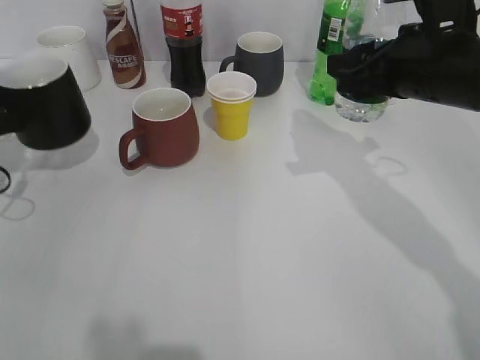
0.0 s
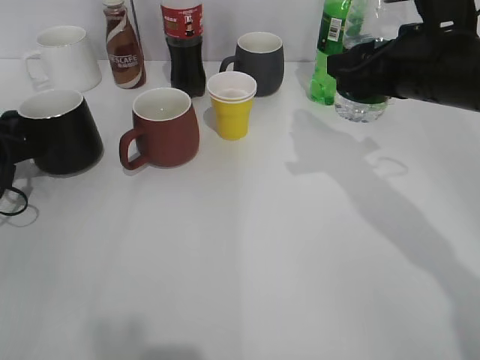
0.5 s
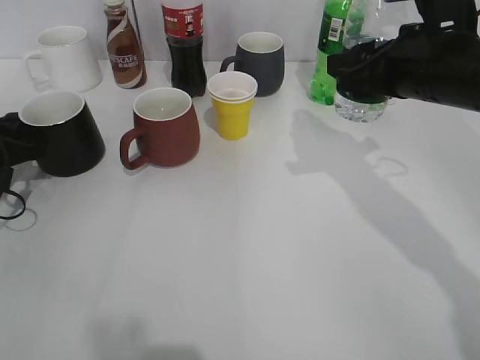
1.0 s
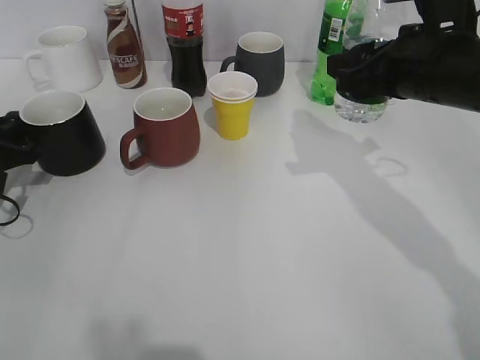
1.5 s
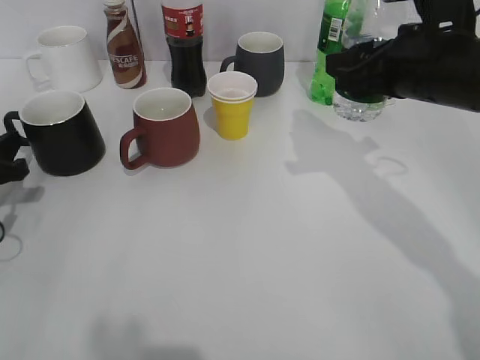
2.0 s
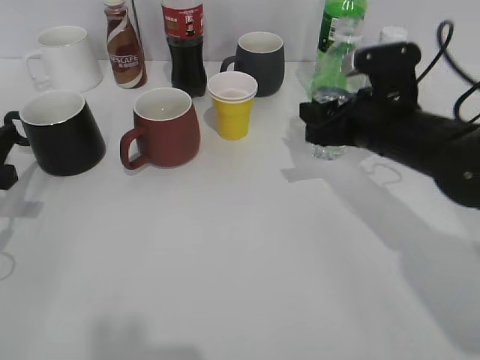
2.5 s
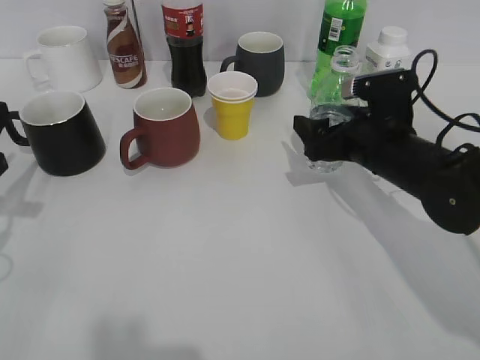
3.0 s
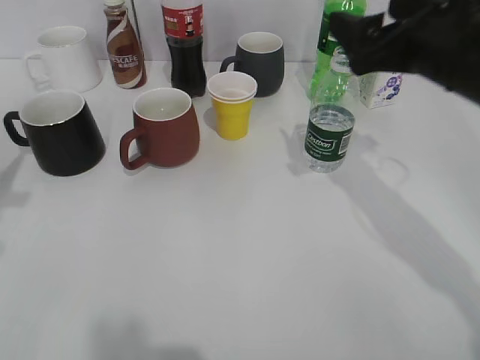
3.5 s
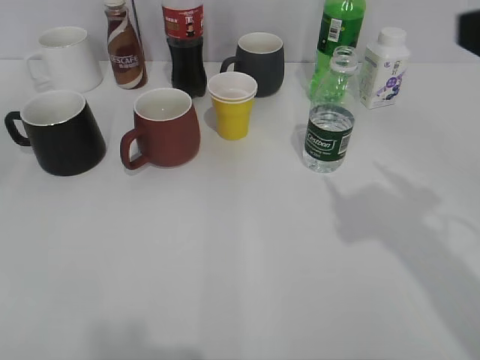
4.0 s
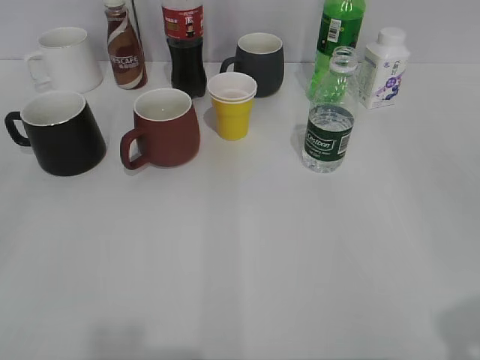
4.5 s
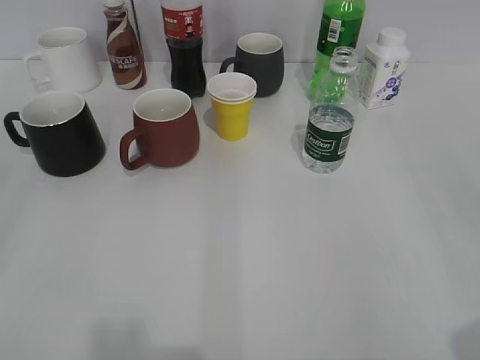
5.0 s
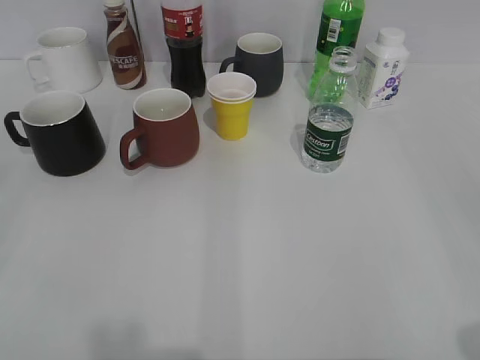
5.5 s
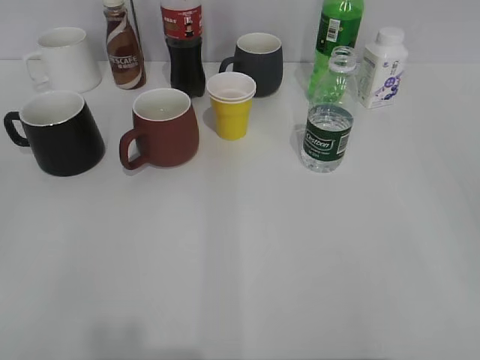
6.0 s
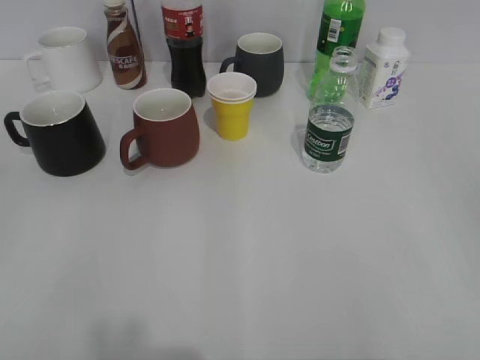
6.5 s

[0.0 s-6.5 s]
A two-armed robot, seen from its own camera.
Step, 1.0 to 3.0 s: Place the water bottle on the table with right gripper.
0.0 to 2.0 s: The left gripper changes place by approximately 5 cm, and opens.
2.0 to 4.5 s: The right gripper travels backward and to the right by about 30 cm, and opens up. Meanwhile the left gripper travels backward and upward by roughly 30 cm, and opens its fingers.

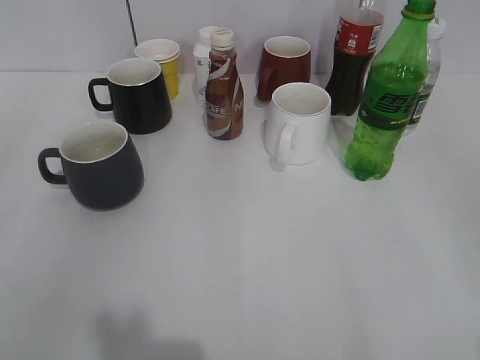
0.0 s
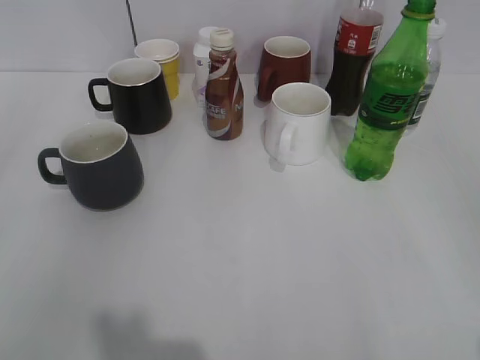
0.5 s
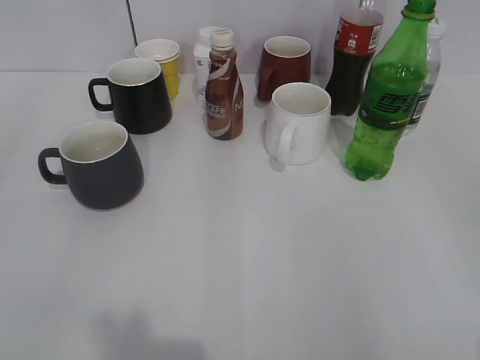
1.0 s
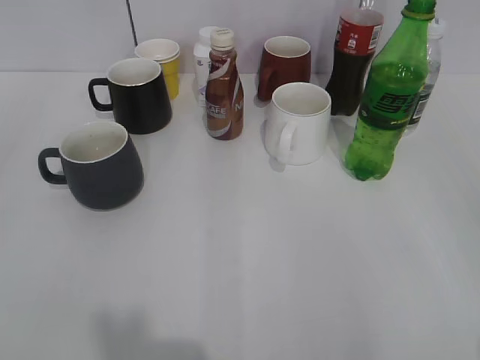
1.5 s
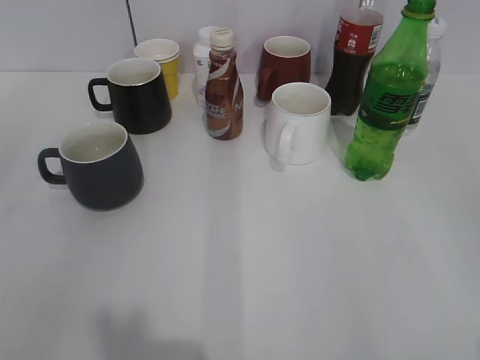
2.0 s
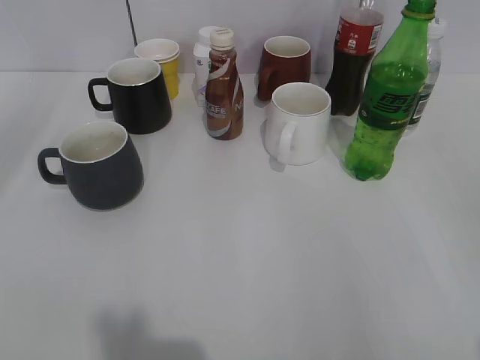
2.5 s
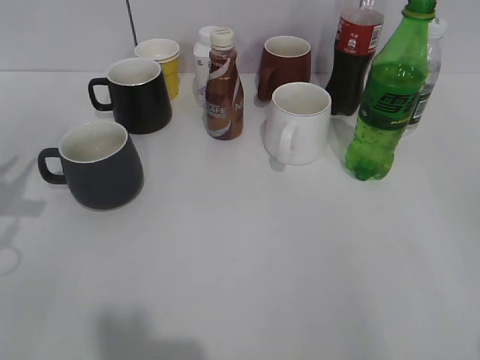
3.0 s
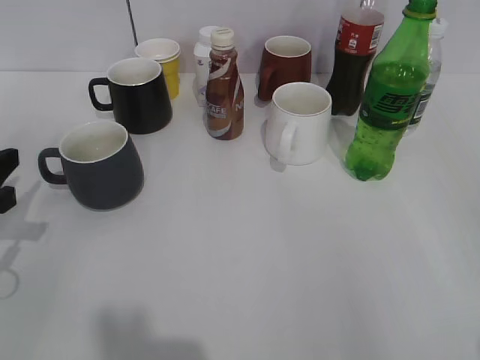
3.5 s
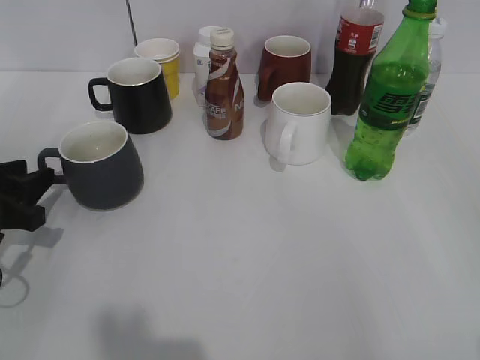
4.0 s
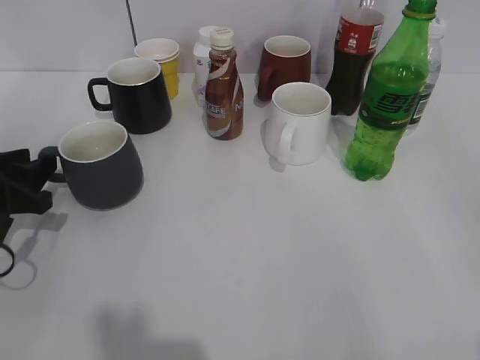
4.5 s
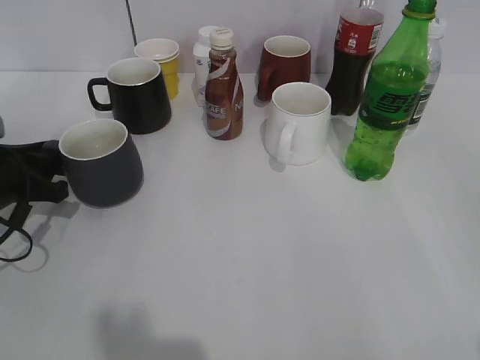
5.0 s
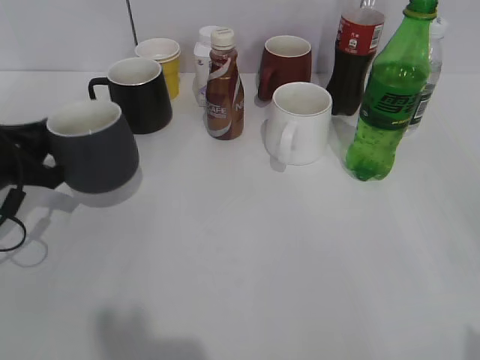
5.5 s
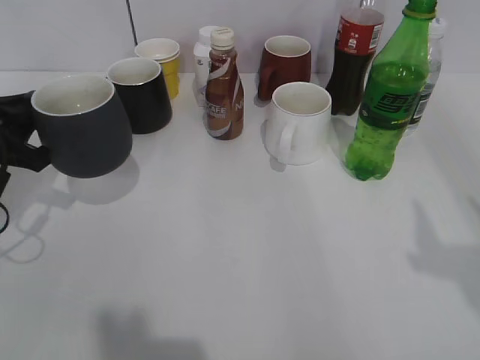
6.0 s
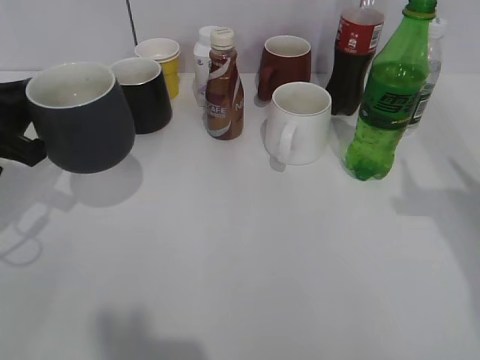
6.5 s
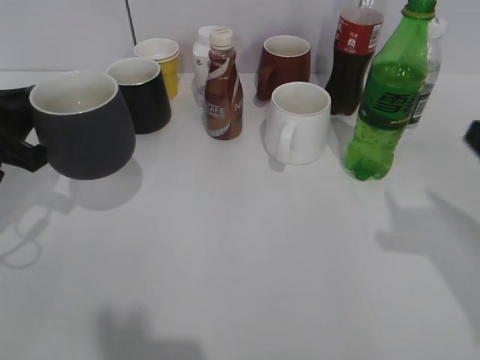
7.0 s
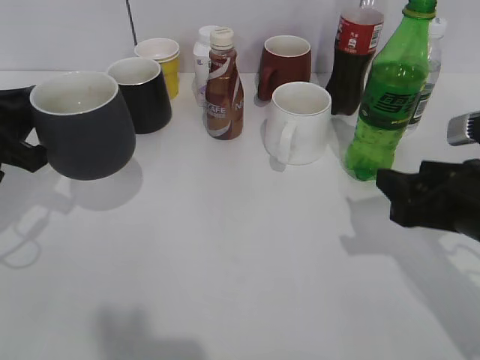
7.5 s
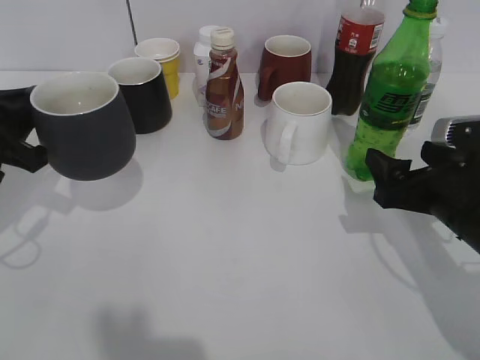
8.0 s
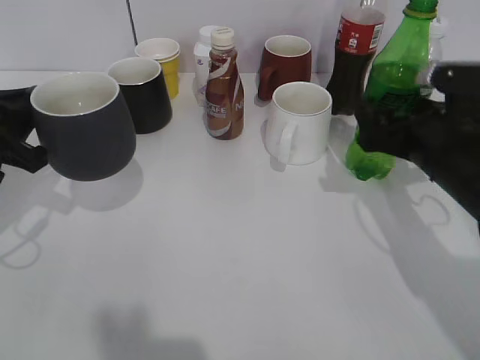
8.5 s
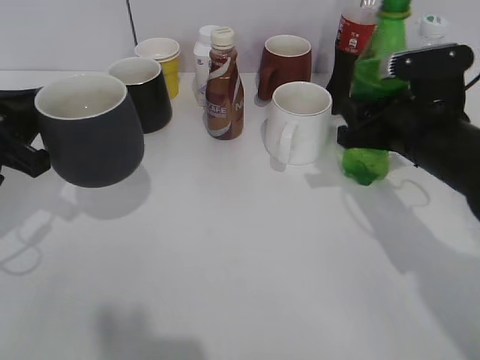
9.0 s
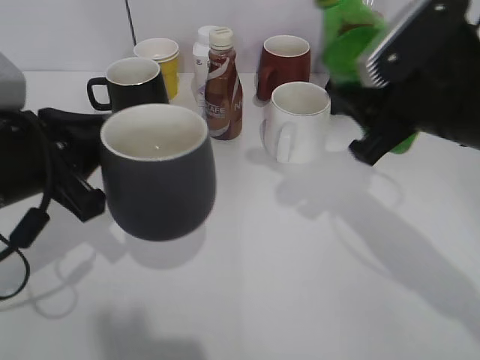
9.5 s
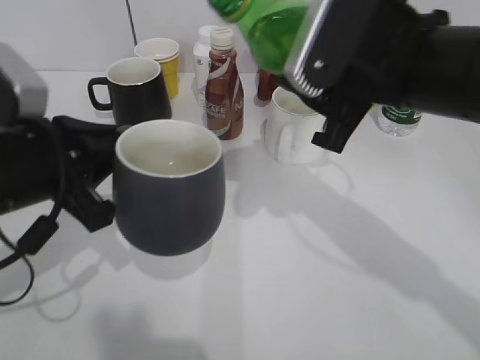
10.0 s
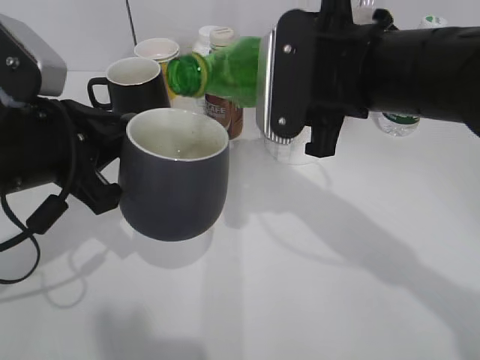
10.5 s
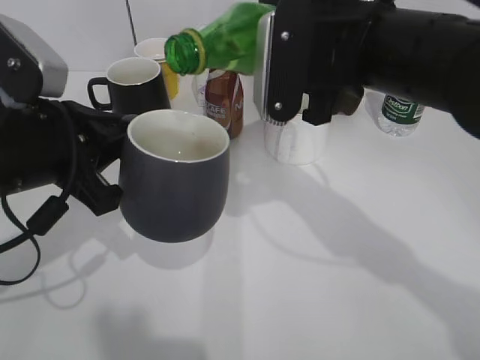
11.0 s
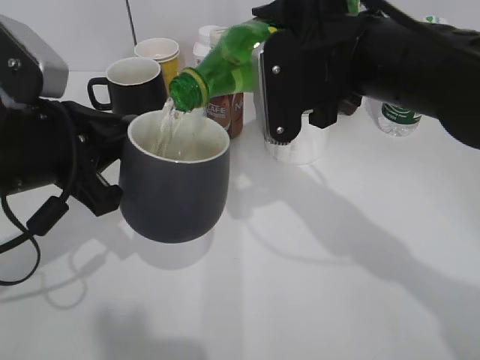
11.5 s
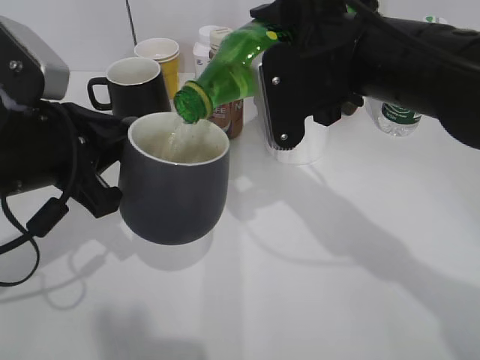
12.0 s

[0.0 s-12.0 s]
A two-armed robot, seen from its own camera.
Step, 2.0 to 5.0 s: Grasp the grey cup with left gripper.
Step, 5.5 to 6.5 s: Lift the grey cup with left gripper.
Step, 7.0 to 8.5 s: Grasp the bottle with sprite with right gripper.
2.0 to 4.0 s: The left gripper shifts about 30 cm forward and downward, and opens up.
4.0 to 6.0 s: The left gripper is displaced upward by approximately 5 cm, and closes its fingers.
6.0 to 8.0 s: The right gripper goes approximately 25 cm downward and forward, and closes and opens again.
8.0 to 10.0 s: The right gripper moves upward and to the left, approximately 15 cm, and closes. Meanwhile the left gripper goes approximately 10 cm to the right and backward.

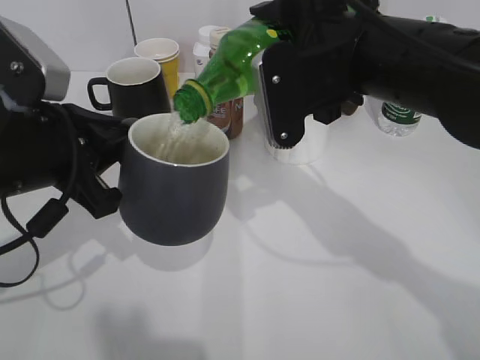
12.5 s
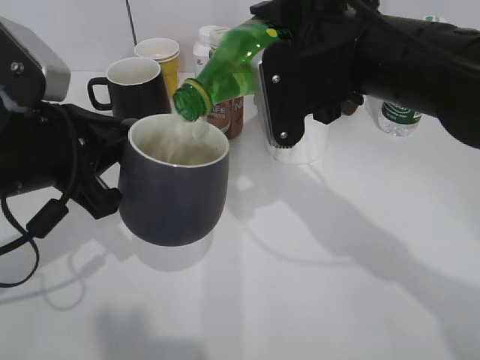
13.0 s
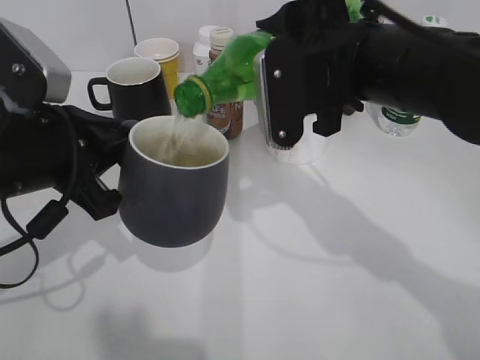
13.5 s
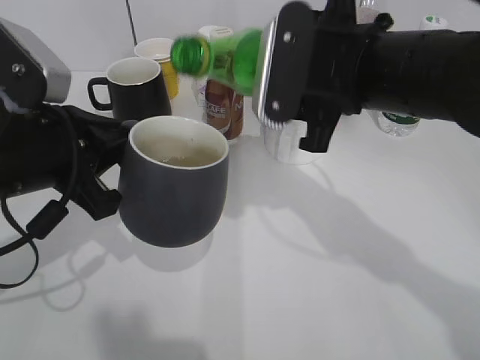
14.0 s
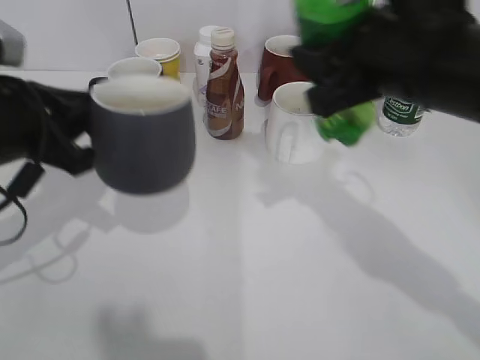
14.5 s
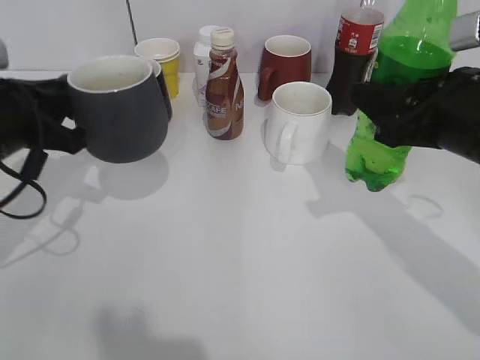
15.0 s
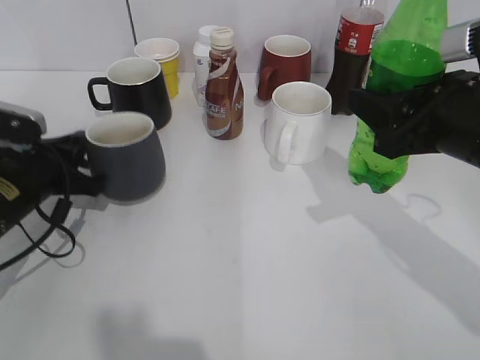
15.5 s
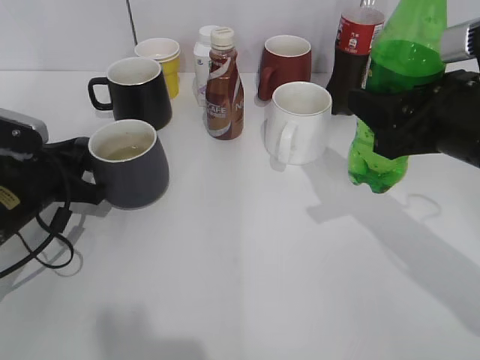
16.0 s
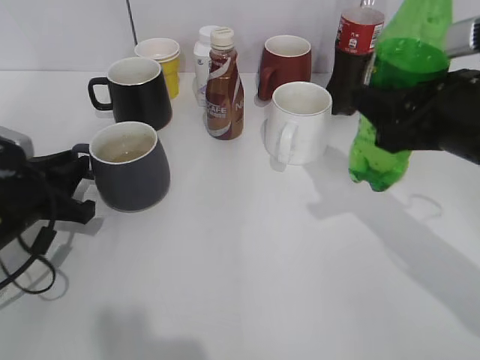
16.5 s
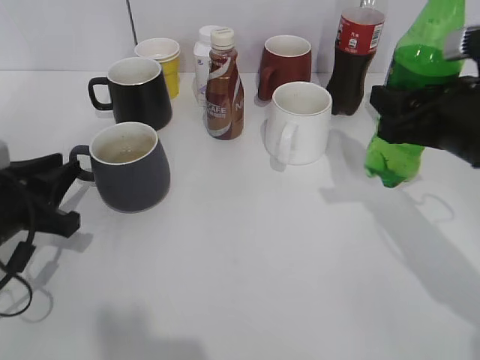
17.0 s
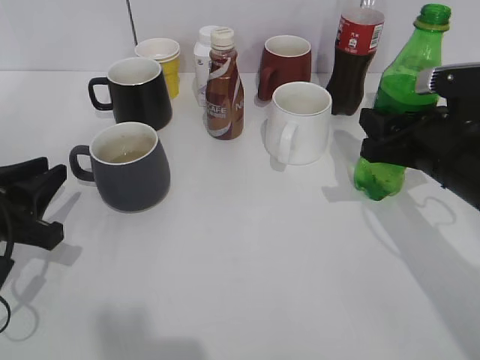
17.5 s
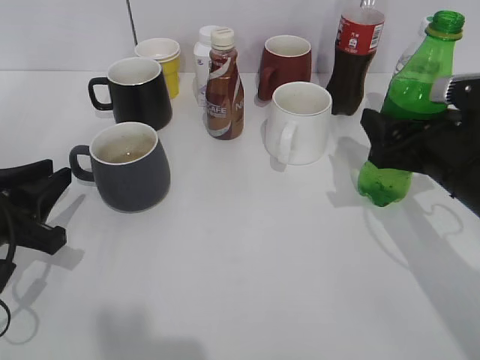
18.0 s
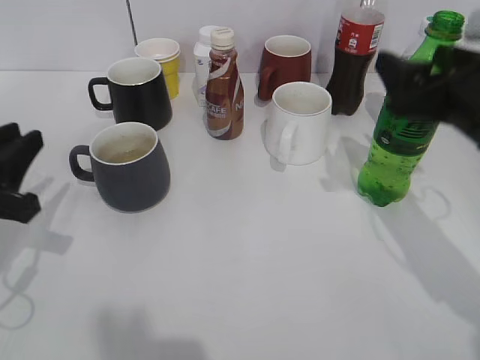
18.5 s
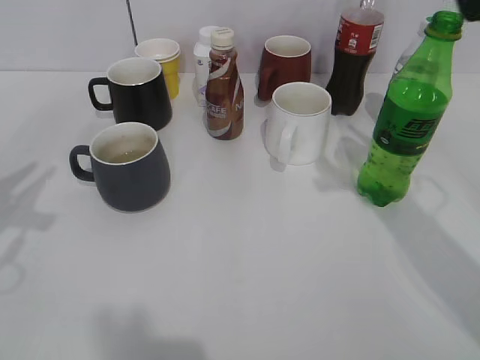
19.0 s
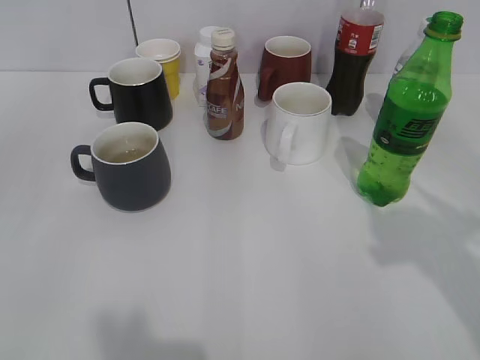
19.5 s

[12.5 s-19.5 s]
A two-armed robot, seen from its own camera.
Step, 14.0 to 16.0 s: Place the grey cup on the table with left gripper.
Step, 16.5 to 18.5 s: Place the sprite bottle on the table with right gripper.
12.5 to 14.5 s: The right gripper moves to the right, some 5 cm.
14.5 to 16.0 s: The left gripper travels downward by roughly 15 cm, while the right gripper ends up about 5 cm from where it was.
16.0 to 17.5 s: The left gripper moves backward, about 5 cm. The right gripper travels downward by some 5 cm.
17.5 to 19.5 s: The grippers both shift upward and backward by approximately 25 cm. The right gripper opens up.
